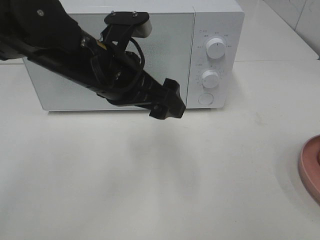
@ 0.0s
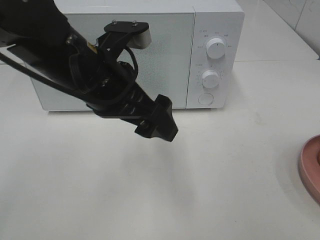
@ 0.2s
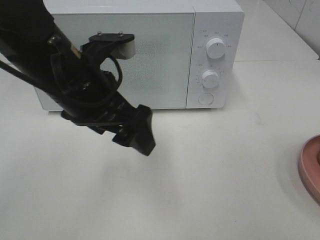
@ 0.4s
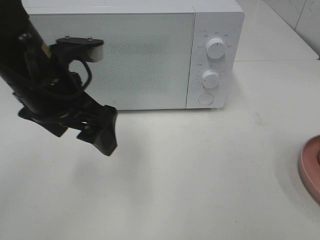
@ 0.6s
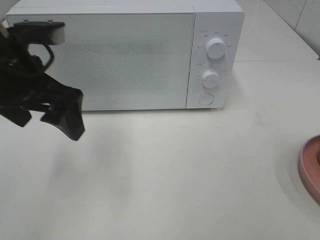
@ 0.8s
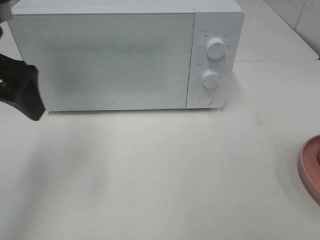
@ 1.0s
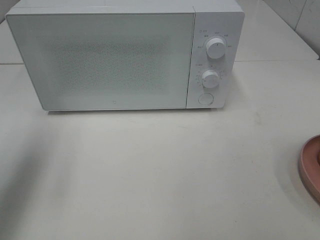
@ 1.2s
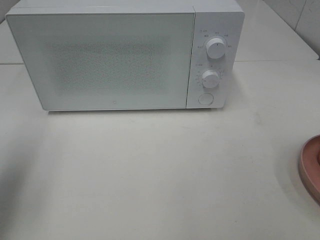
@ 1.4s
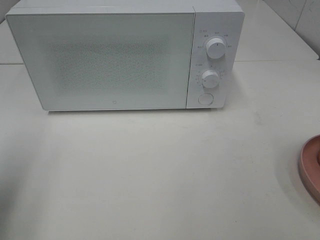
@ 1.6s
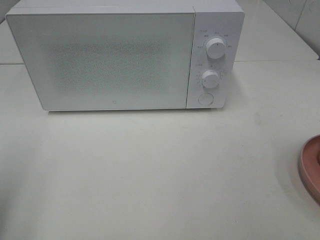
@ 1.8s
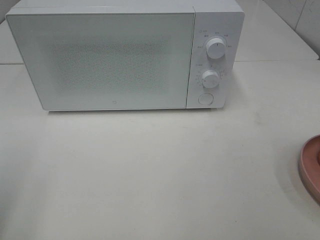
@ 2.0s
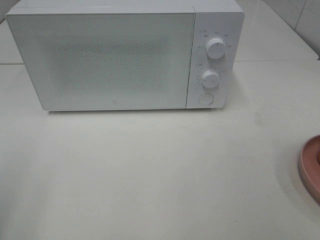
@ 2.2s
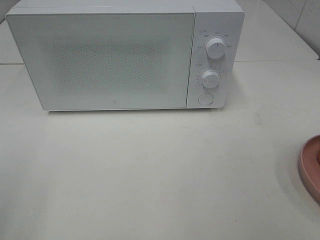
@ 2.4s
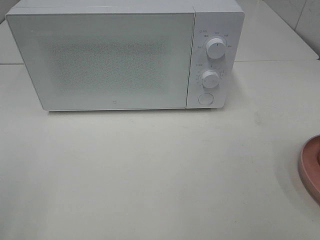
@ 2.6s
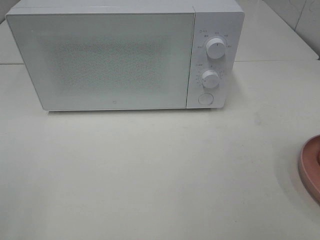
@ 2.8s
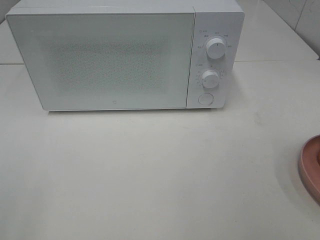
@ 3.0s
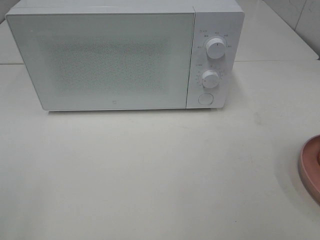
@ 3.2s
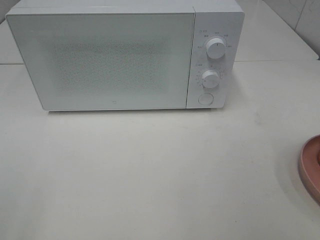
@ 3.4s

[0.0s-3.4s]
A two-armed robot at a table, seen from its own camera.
Task of the whole recording: Heat the burger.
0.0s to 1.6s: The left gripper goes some 25 cm to the left and backward.
1.6s to 3.4s: The left gripper heads backward, covering approximately 15 cm.

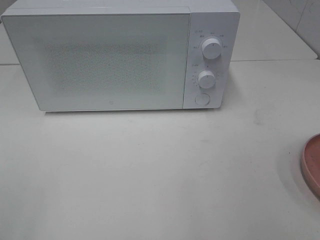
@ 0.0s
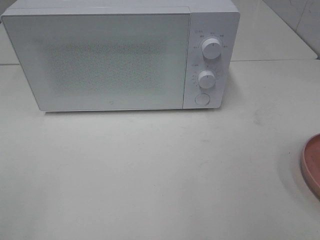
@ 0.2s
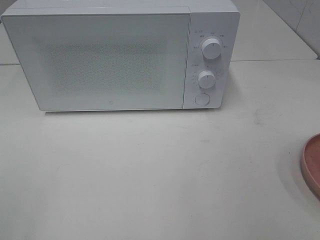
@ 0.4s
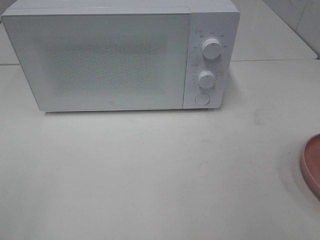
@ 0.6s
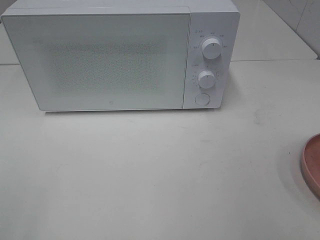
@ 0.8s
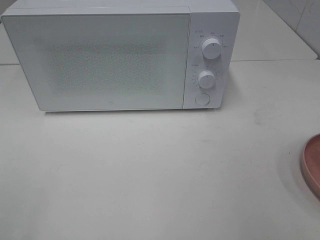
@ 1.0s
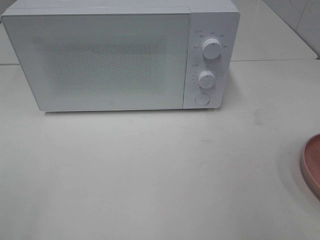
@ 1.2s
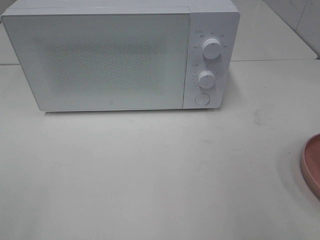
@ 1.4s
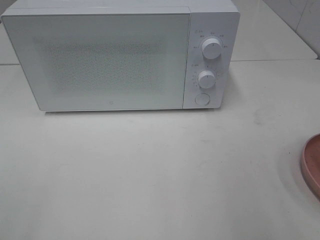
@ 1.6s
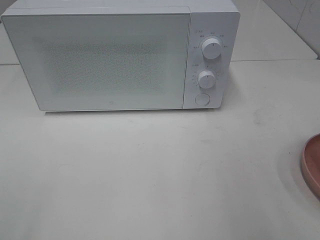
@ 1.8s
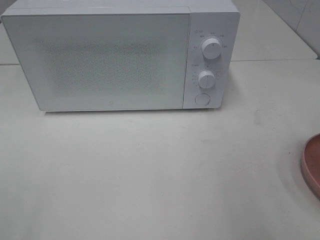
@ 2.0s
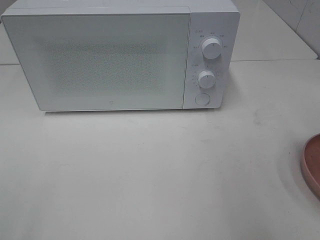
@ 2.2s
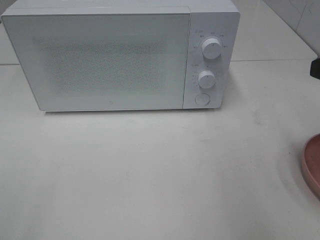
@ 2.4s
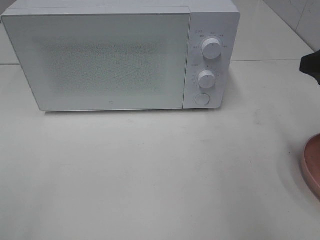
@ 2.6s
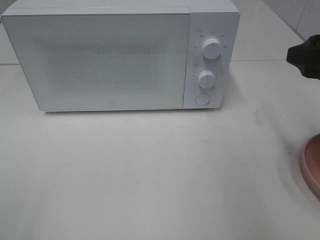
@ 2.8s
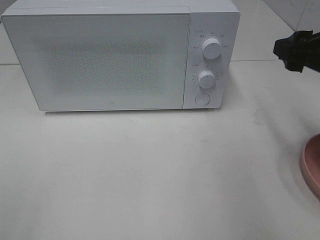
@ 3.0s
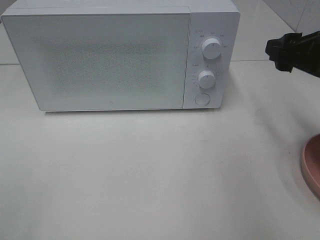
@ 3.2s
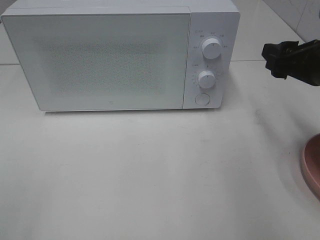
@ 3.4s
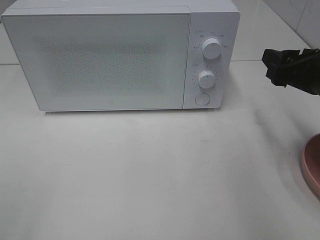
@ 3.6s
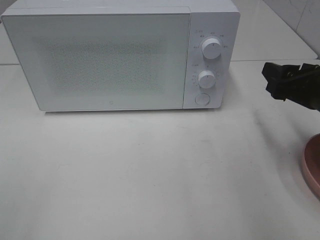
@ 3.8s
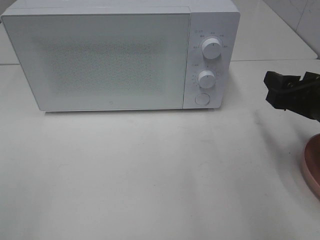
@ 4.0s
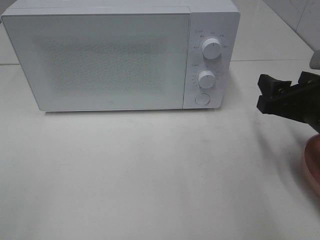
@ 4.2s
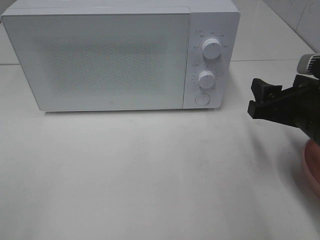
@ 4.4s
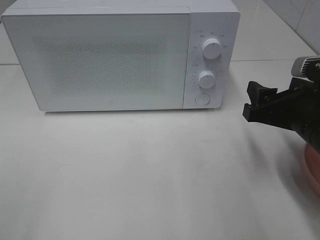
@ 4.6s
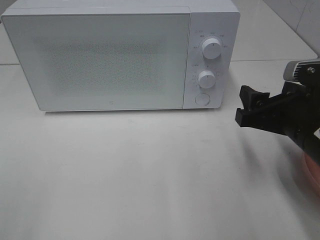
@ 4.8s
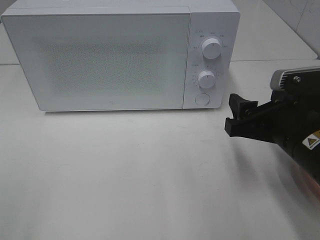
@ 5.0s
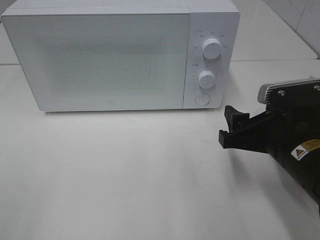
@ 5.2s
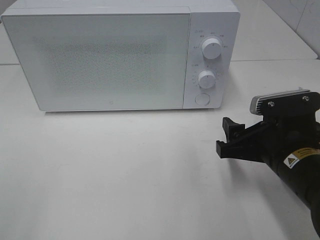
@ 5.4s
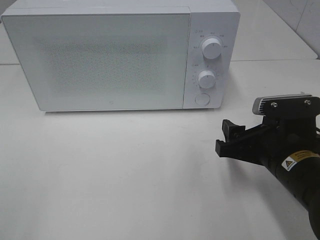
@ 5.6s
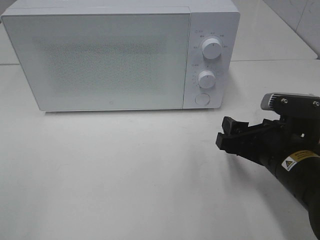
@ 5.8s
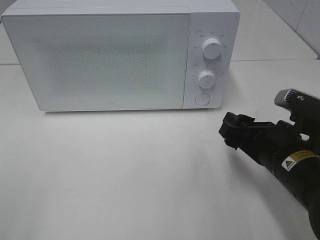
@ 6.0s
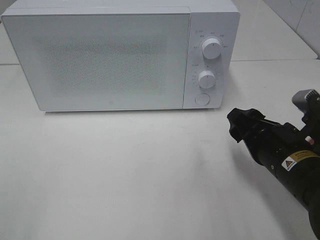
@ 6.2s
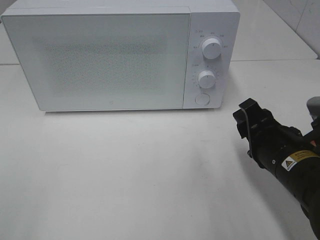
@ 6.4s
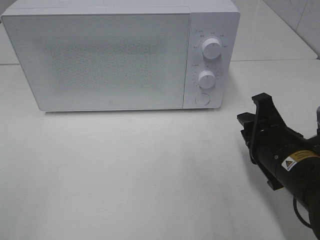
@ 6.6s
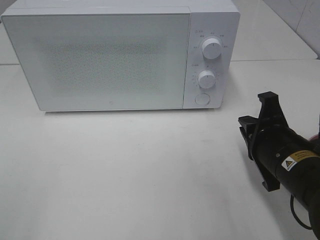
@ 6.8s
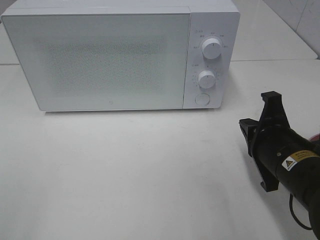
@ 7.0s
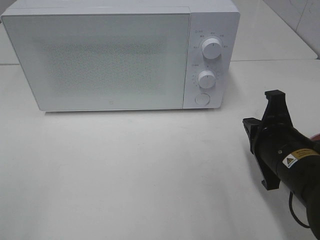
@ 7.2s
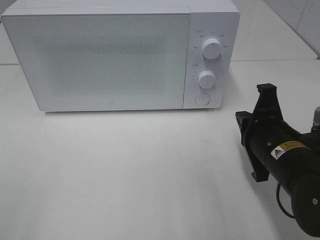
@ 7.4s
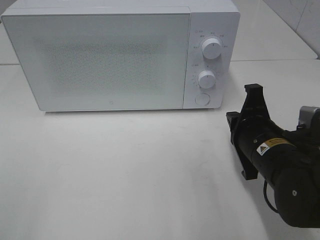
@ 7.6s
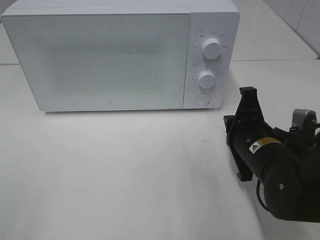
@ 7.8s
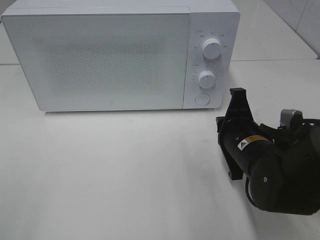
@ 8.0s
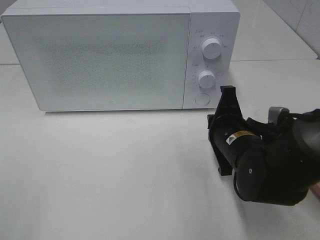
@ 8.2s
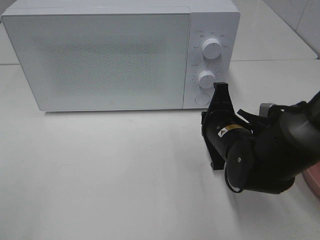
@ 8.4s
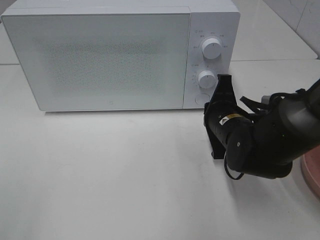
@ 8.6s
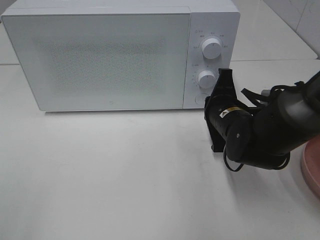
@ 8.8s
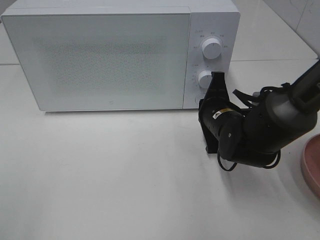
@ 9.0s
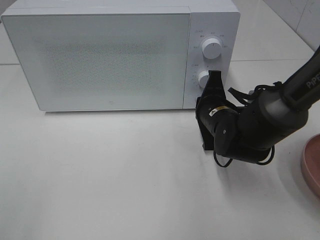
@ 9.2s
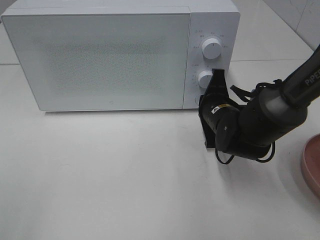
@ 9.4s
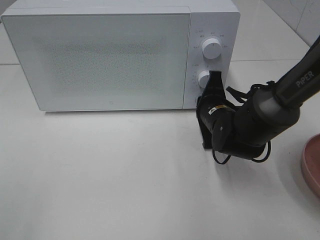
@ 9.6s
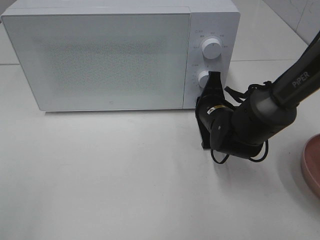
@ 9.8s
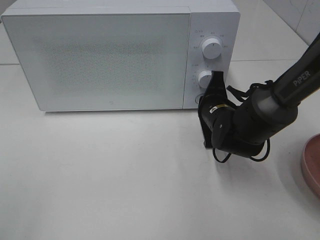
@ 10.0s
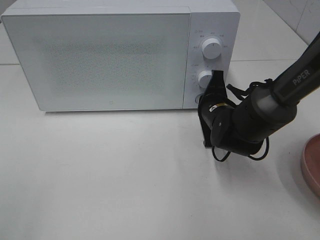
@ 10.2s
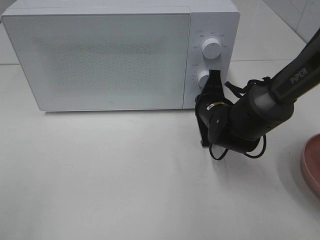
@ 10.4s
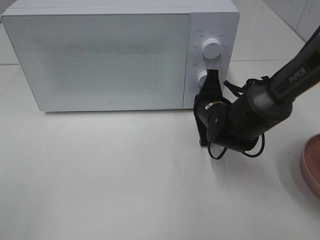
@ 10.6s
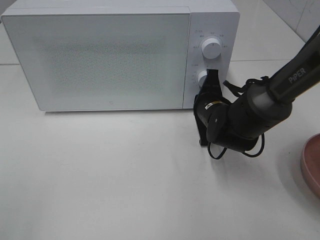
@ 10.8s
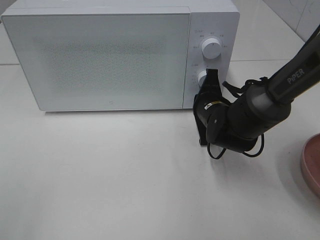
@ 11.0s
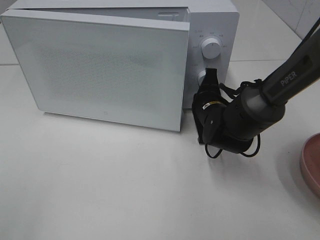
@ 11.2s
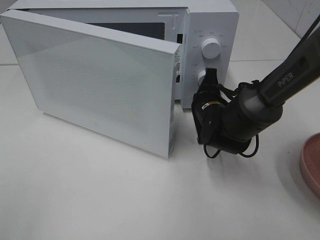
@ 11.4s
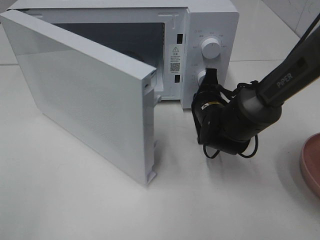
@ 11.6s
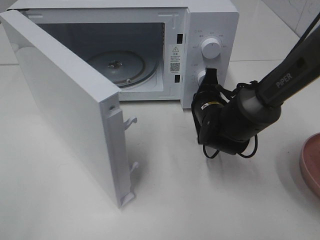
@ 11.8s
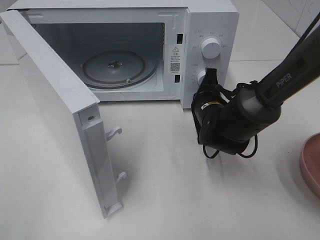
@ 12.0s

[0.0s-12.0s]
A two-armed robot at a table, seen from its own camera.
Task of the whole recording: Heat the burger.
1.6s to 3.0s: The right gripper is displaced forward by some 15 cm.
3.0s to 4.4s: The right gripper is displaced downward by approximately 10 cm.
4.4s to 6.0s: The right gripper shifts by some 5 cm.
6.0s to 7.6s: The right gripper closes up.
7.6s to 9.0s: The right gripper heads forward, covering approximately 10 cm.
9.0s to 10.4s: The grippers stay close to where they were, moving slightly.

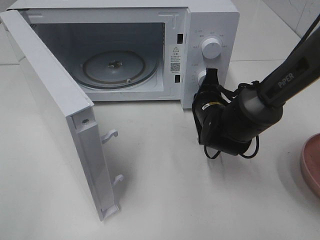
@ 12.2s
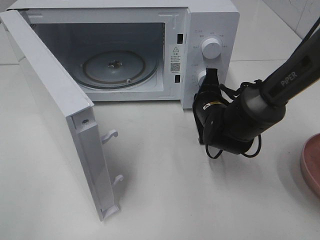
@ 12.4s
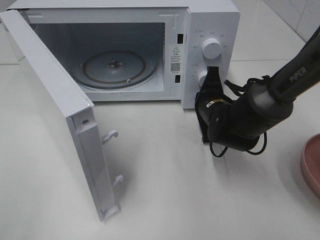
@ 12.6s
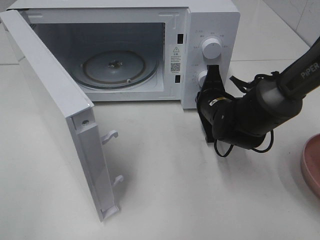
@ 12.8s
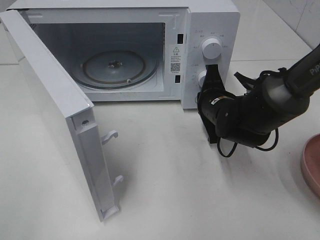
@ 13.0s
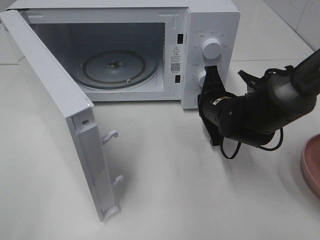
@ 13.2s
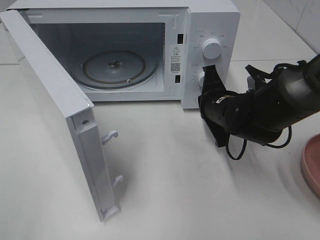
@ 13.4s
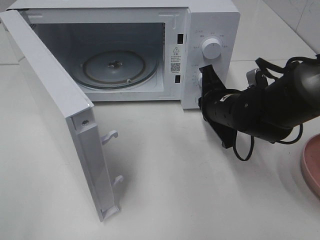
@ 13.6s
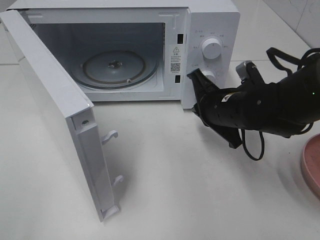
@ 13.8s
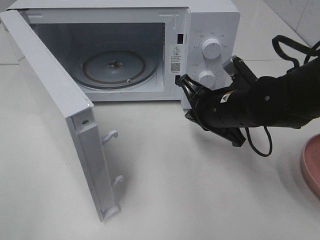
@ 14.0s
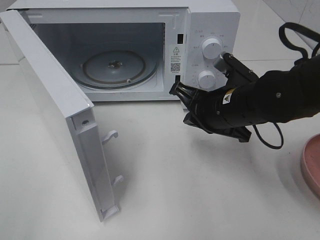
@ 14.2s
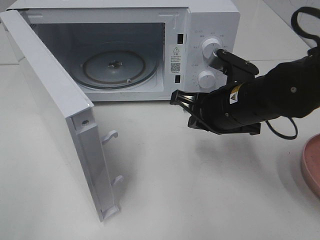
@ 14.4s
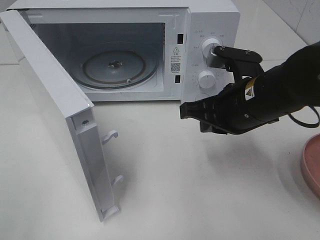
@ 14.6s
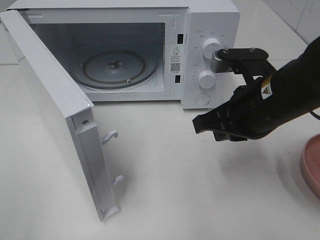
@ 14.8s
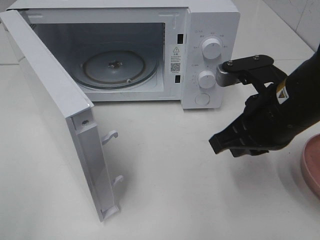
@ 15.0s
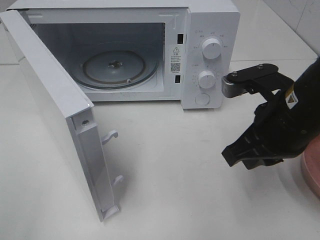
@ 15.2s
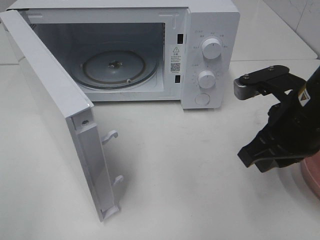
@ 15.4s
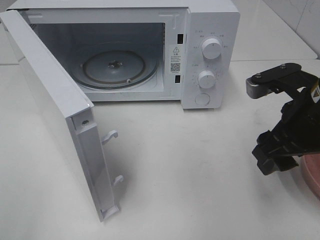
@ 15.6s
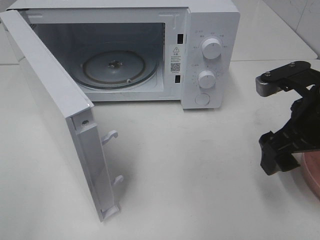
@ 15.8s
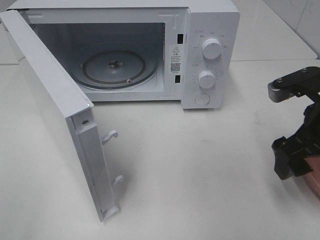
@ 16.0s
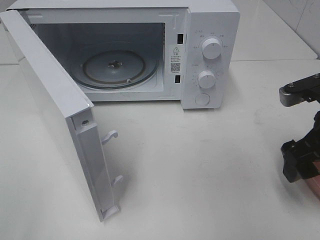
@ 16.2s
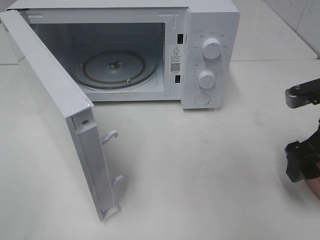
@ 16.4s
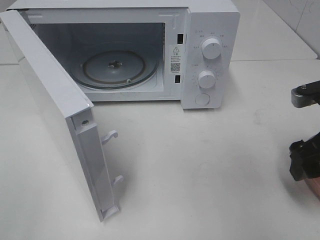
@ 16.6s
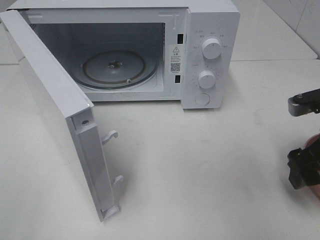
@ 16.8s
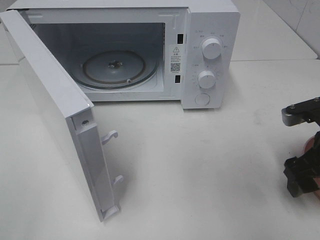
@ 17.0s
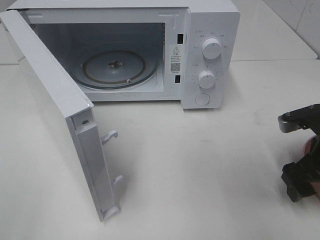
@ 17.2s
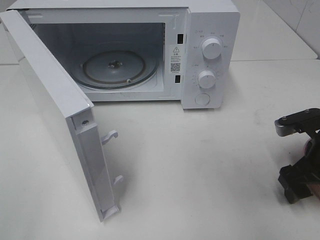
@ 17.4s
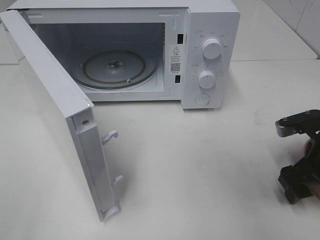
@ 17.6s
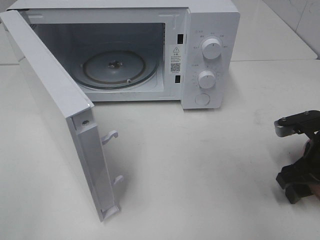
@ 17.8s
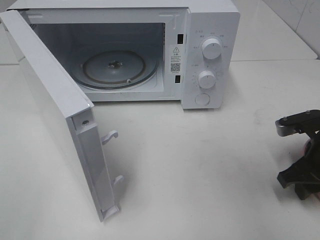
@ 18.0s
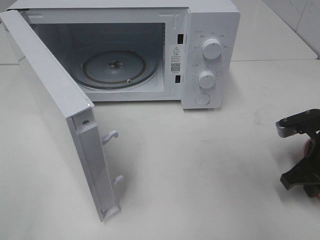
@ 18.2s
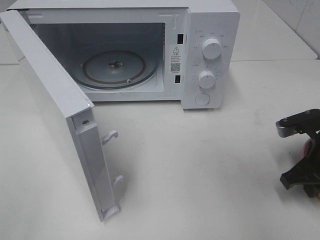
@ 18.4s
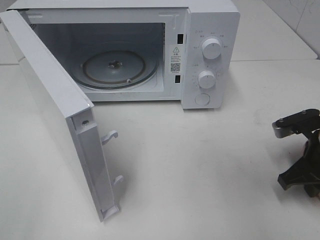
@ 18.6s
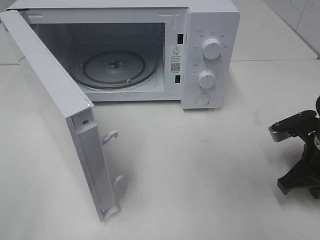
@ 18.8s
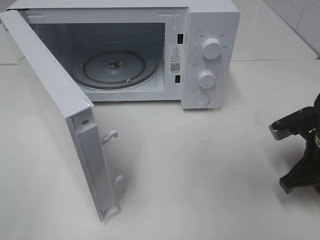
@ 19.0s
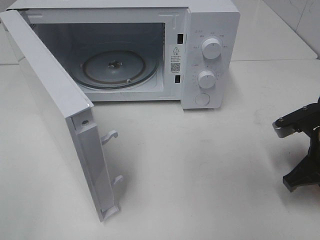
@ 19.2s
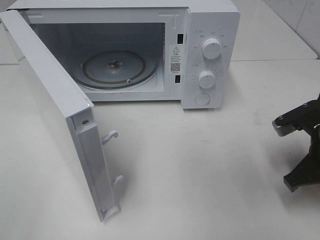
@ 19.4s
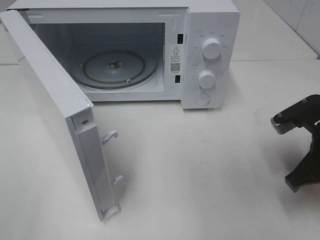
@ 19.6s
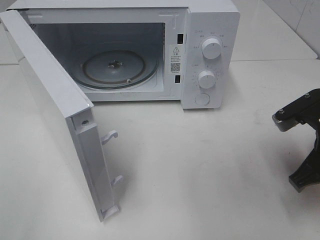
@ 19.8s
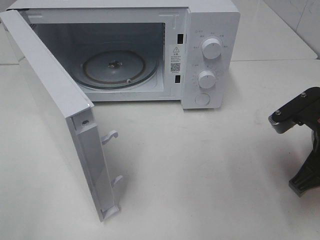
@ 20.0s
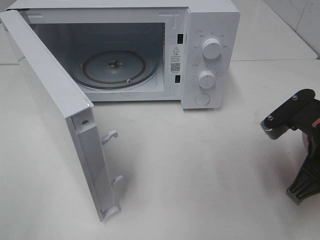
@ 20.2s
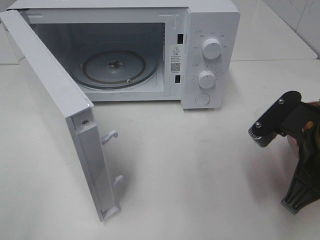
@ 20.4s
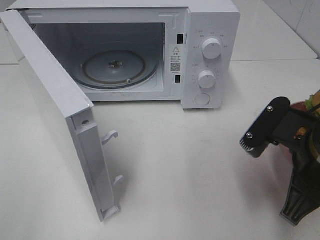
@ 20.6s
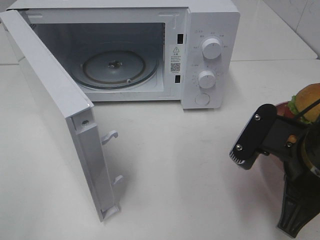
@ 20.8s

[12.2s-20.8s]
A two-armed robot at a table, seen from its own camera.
Task of the whole recording: Heat the burger.
Step, 13.8s to 19.4s: Right hand: grab the plate with the hamburger.
12.2s to 13.6s: The right gripper ends up roughly 5 cm from where it was.
13.6s to 15.0s: The right gripper is displaced backward and upward by approximately 15 cm.
15.0s to 16.6s: The right gripper goes approximately 10 cm to the right, and opens.
16.6s to 18.0s: The right gripper shifts some 5 cm downward, and closes up.
18.0s to 19.4s: The right gripper closes its fingers.
19.4s to 20.8s: The right gripper is displaced to the left and backward by approximately 10 cm.
